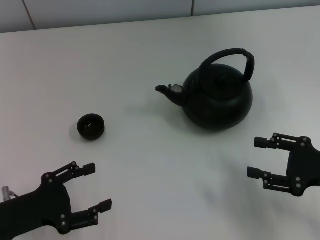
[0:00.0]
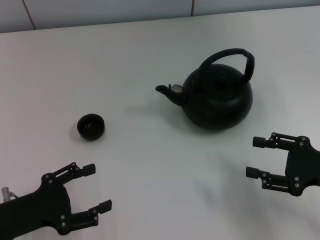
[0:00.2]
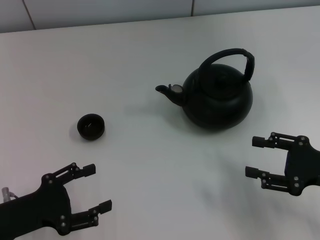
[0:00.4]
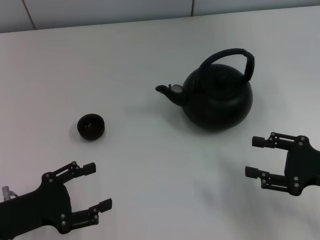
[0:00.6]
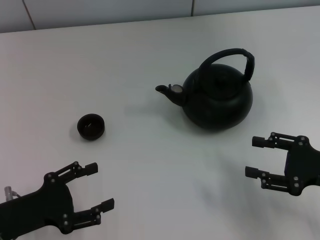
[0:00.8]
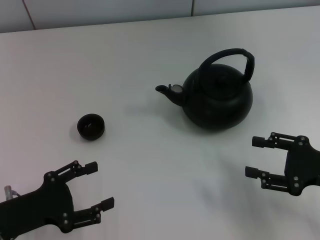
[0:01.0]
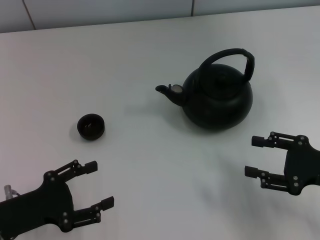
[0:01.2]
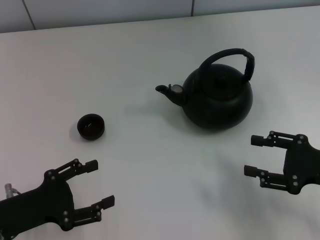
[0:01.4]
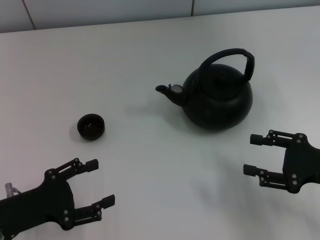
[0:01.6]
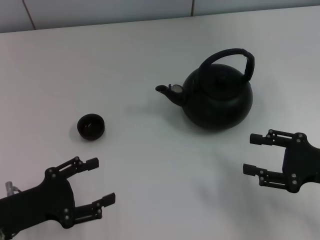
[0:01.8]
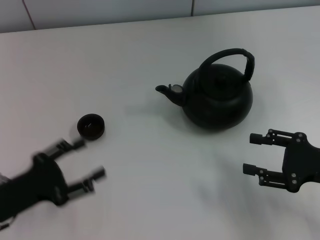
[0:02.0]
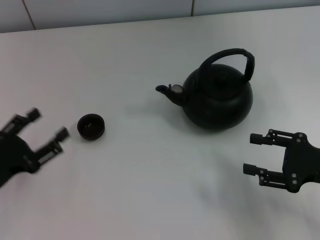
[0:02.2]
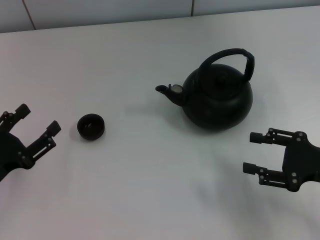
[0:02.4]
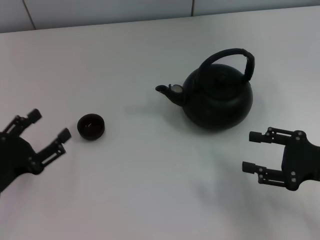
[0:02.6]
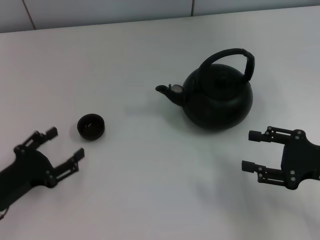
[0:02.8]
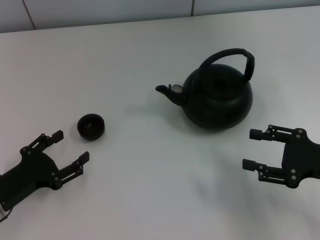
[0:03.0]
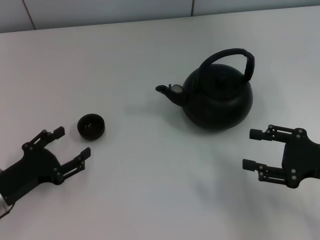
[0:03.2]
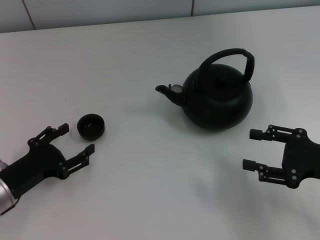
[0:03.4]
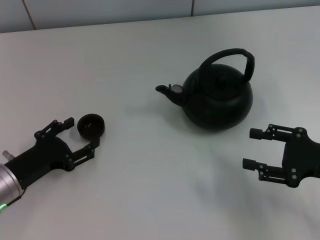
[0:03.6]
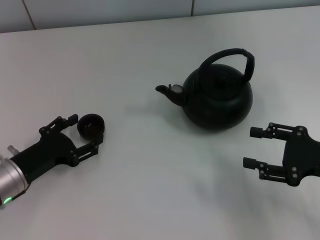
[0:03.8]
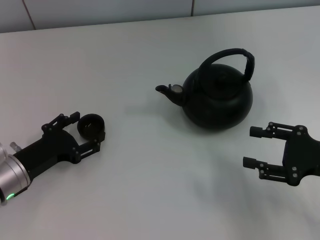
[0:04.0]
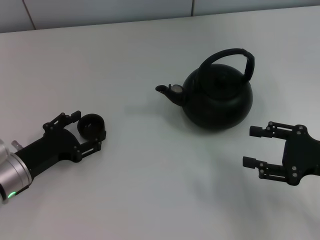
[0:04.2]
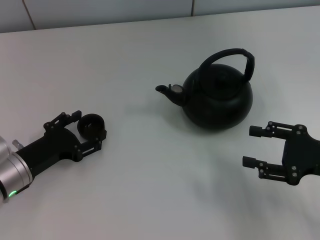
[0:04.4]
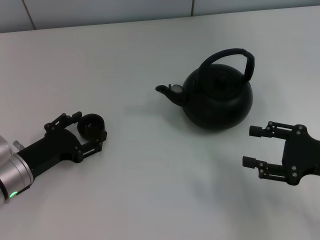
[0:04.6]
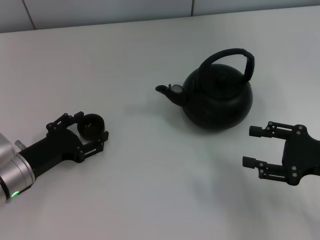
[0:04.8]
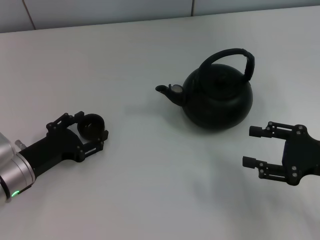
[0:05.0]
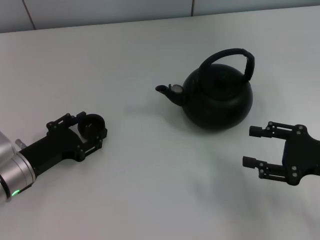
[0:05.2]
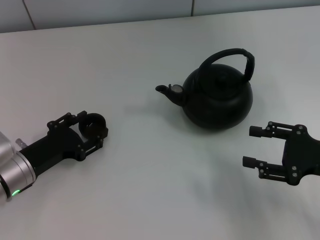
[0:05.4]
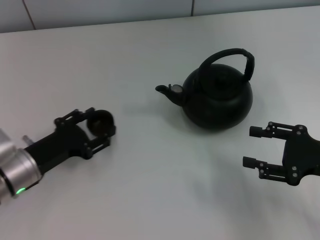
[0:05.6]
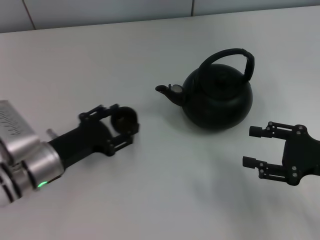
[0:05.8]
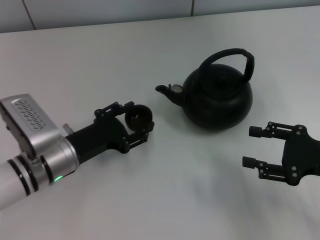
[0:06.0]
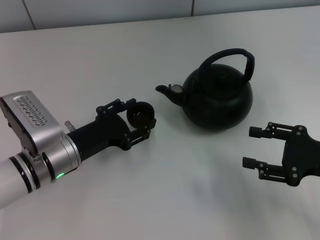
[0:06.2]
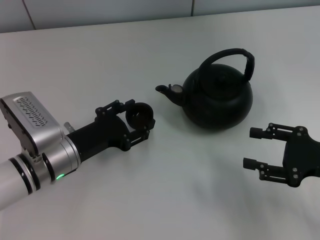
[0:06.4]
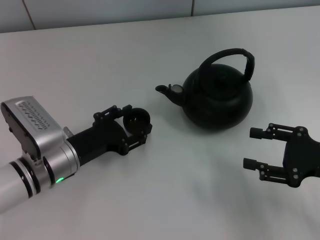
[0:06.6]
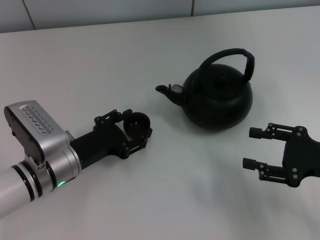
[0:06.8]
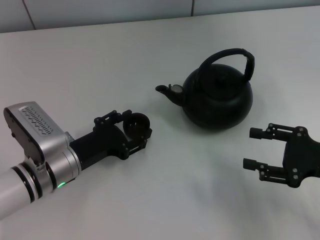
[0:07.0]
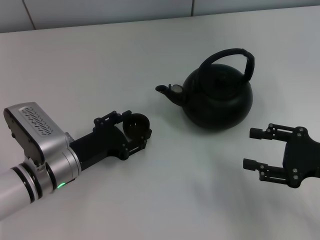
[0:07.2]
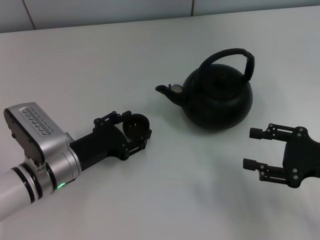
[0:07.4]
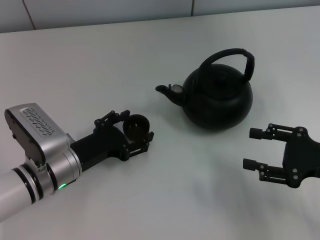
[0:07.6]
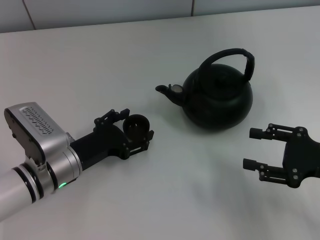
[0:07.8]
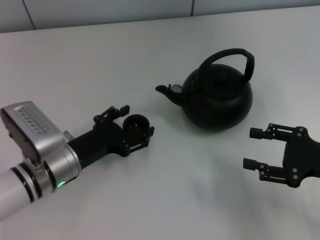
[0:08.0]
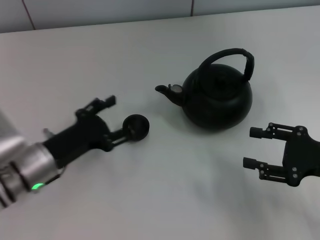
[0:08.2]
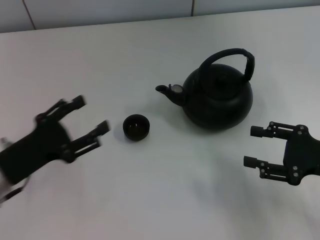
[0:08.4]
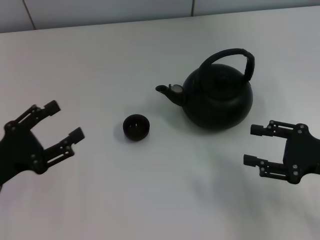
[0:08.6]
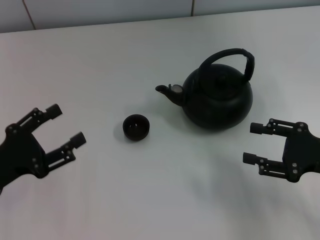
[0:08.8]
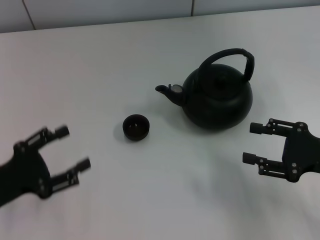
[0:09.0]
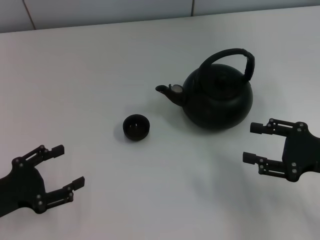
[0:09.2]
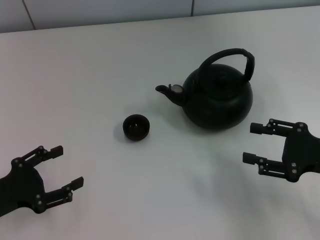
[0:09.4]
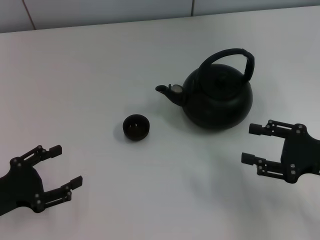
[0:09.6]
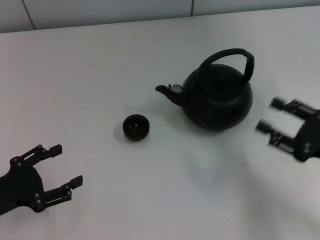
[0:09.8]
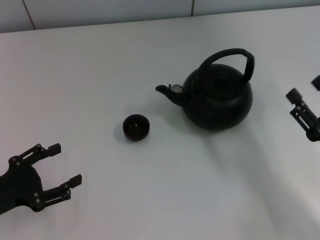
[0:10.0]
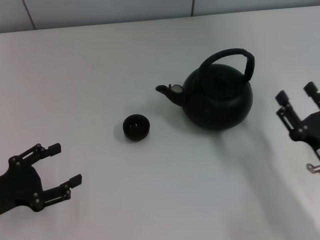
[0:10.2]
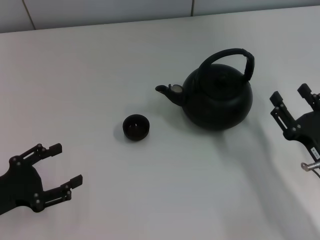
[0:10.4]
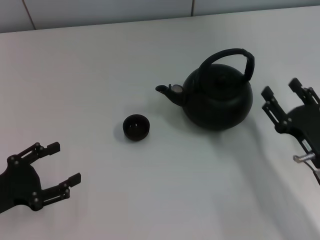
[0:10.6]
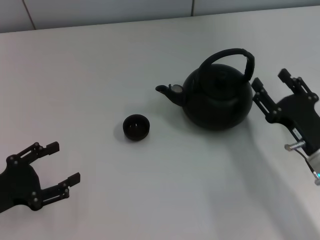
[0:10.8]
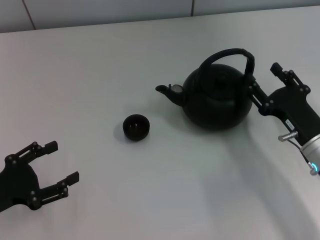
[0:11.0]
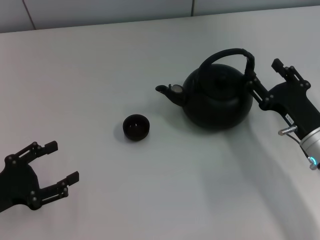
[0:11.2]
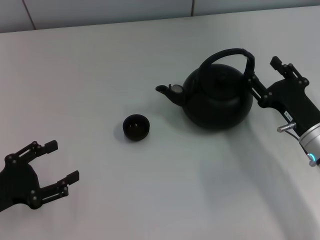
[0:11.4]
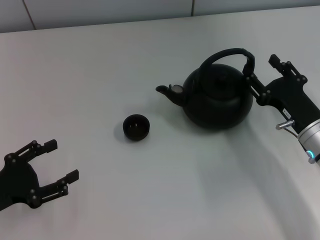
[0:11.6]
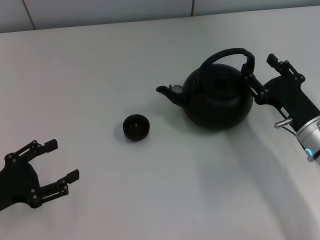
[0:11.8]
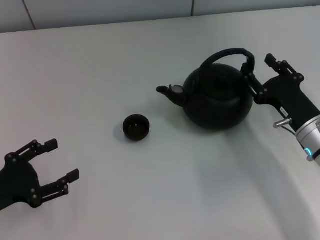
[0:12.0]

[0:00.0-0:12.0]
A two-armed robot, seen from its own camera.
Task of the whole recording: Grasp the handle of the teapot with one hand and pour tea into the teacup.
Step, 0:00.0 to 0:05.4: Pick up the teacup with the left gripper.
Step, 0:05.6 to 0:08.0: Place the teacup in the center of view with the left gripper.
0:00.0 to 0:01.6: The two grippers keep their place.
0:03.0 to 0:04.4: The left gripper travels forward by some 5 cm.
0:04.4 to 0:06.0: The left gripper travels to the right by roughly 5 cm, and closes up.
0:06.0 to 0:07.6: The grippers move only a little.
0:07.6 to 0:09.0: The left gripper shifts approximately 15 cm to the left and backward, and opens up.
0:09.0 to 0:10.4: The right gripper shifts roughly 10 cm downward and to the left.
0:10.4 to 0:12.0: The right gripper goes about 10 cm forward.

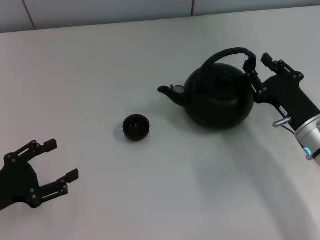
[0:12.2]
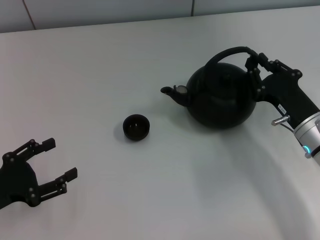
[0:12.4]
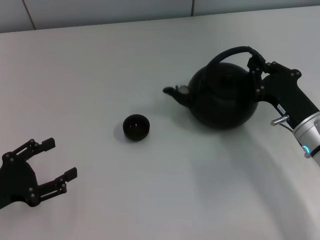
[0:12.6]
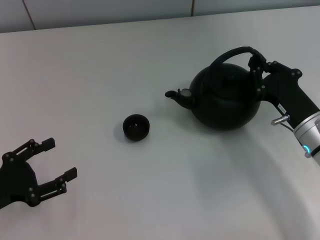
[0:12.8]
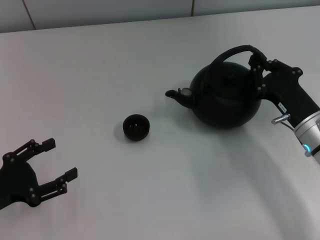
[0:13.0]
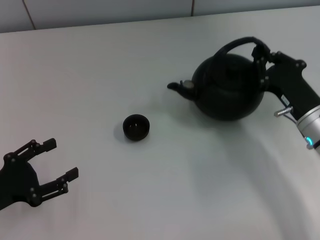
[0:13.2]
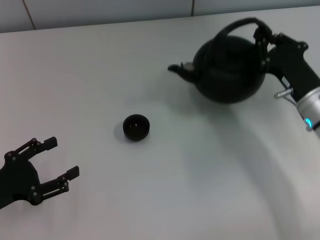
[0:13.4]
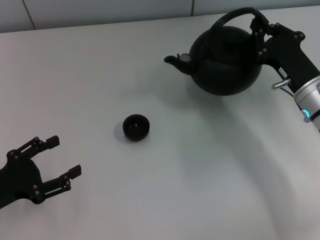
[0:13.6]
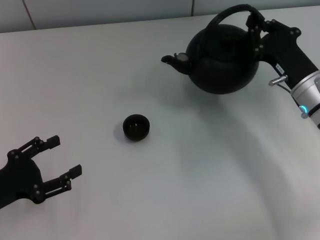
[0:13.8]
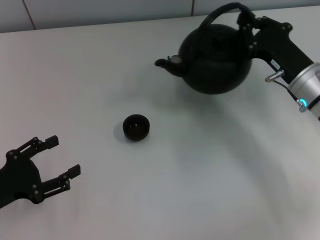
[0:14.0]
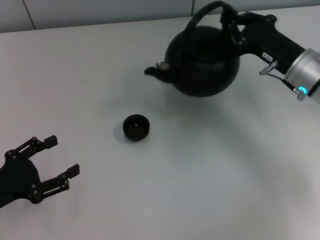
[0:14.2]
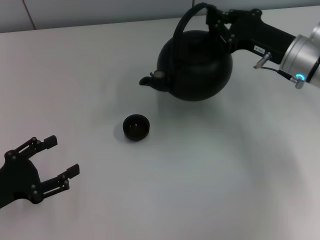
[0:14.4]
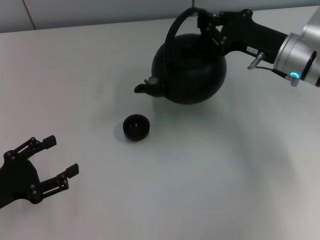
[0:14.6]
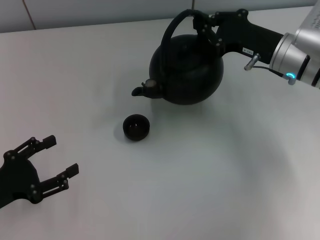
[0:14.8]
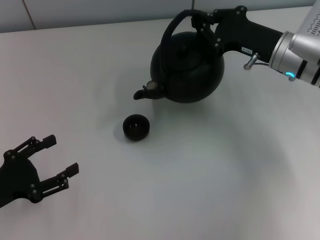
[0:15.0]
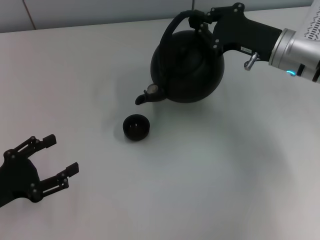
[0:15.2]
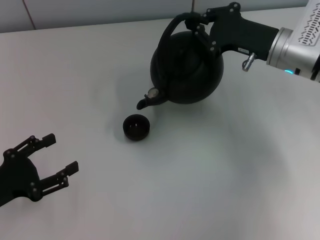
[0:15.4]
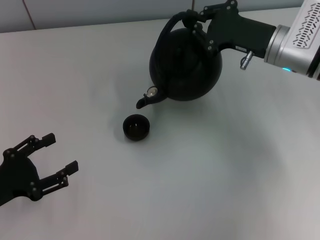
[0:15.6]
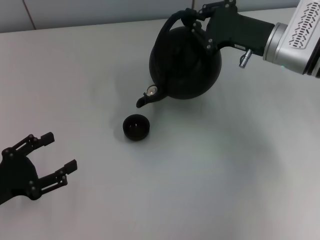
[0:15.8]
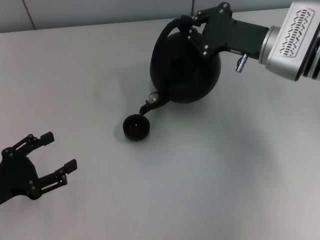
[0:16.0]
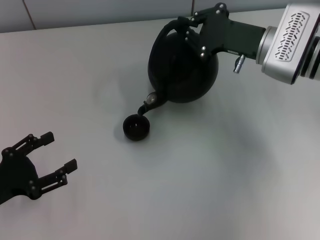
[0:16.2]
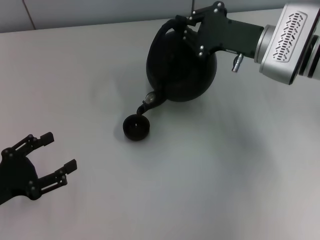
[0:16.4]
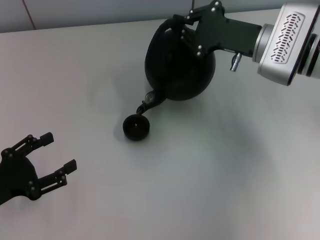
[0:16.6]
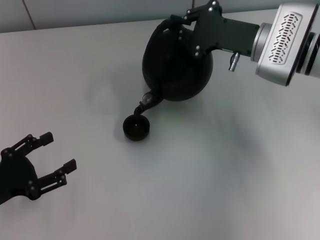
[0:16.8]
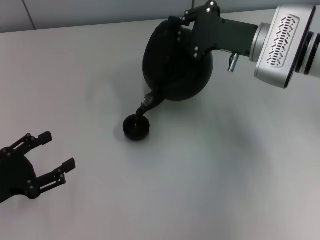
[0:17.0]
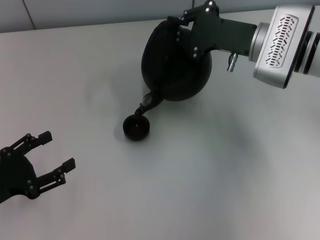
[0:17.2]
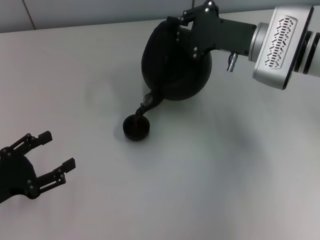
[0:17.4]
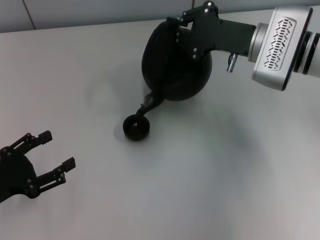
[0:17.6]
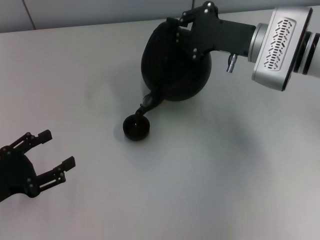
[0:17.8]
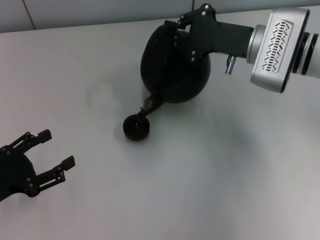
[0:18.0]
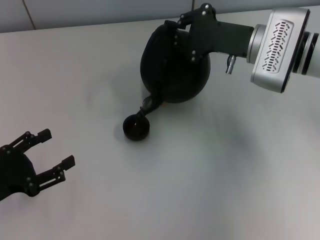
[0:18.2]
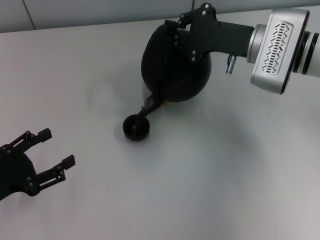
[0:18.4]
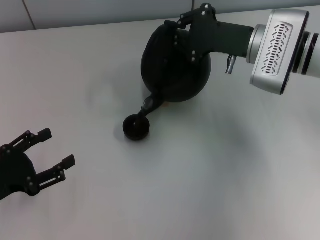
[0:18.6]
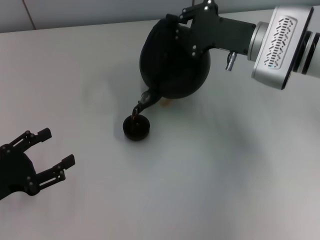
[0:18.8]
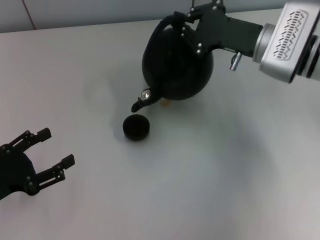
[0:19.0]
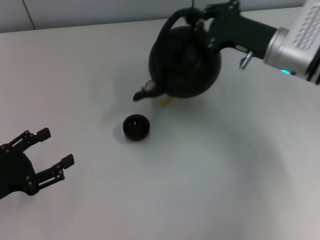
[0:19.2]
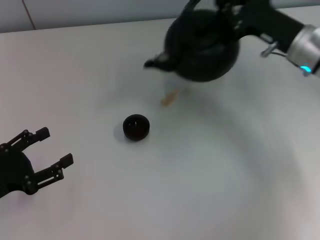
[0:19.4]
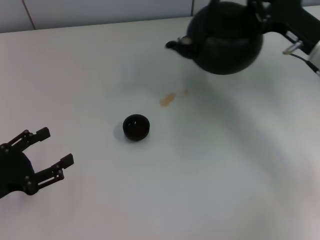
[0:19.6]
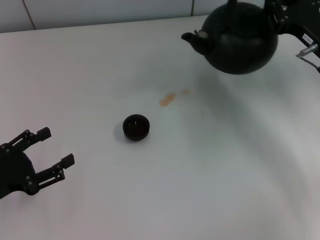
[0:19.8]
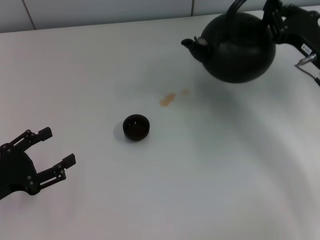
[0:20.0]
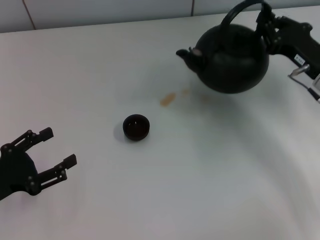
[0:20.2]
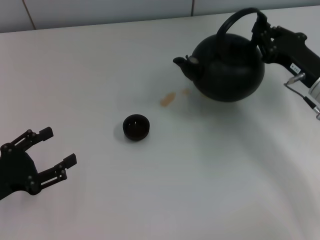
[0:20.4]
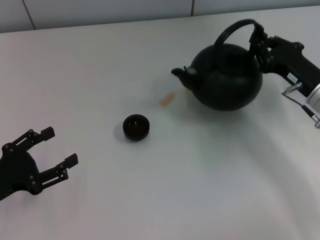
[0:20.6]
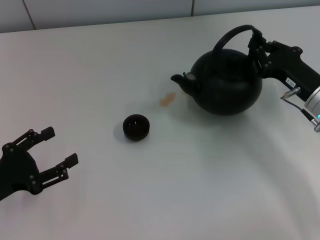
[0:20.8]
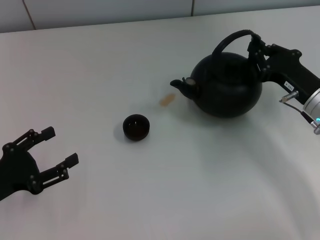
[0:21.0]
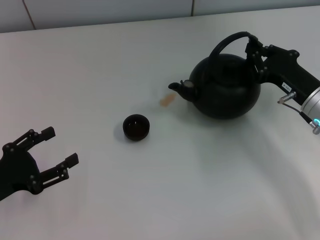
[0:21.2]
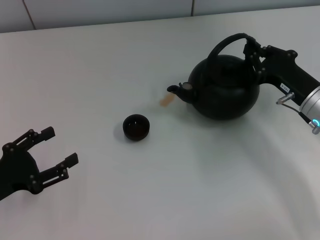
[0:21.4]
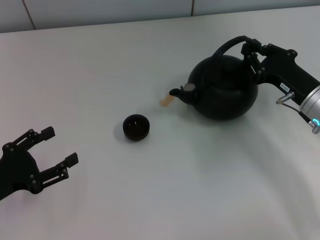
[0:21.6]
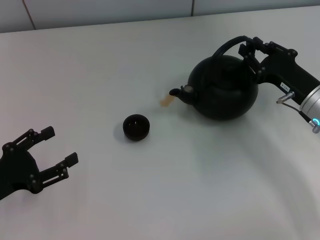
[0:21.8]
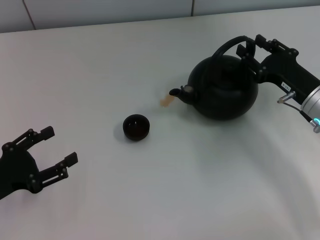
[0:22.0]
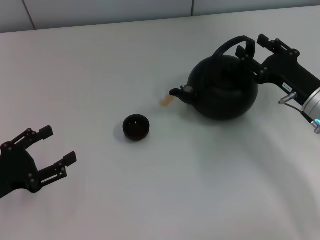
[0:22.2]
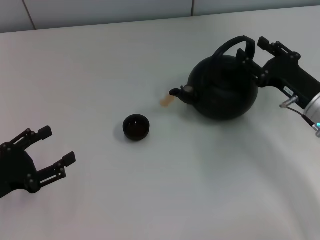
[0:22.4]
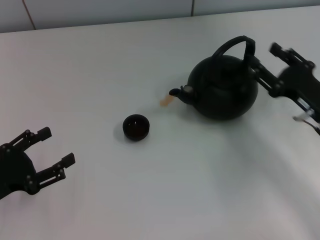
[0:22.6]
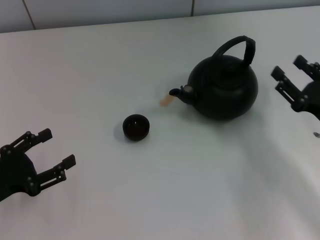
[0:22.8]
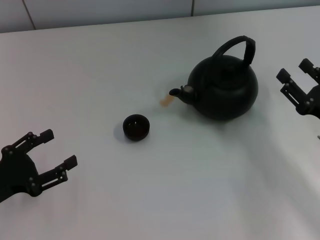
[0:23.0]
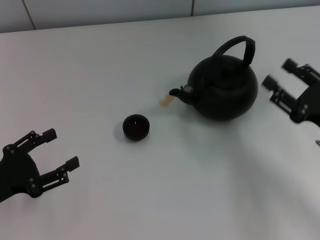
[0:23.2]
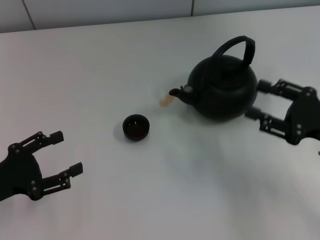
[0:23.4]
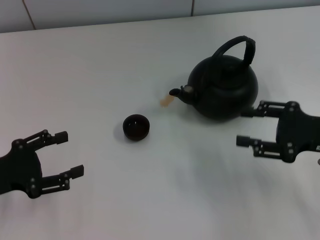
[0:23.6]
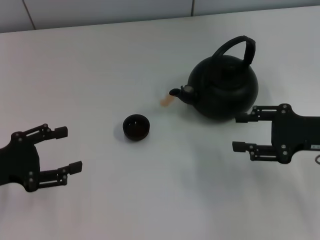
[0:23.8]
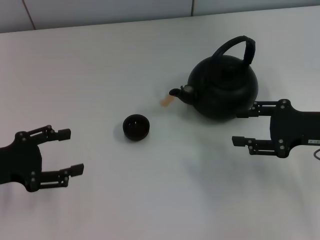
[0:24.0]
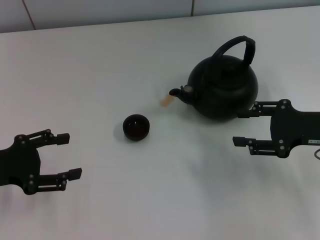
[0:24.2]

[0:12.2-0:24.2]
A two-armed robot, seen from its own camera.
Task of the whole recording: Grasp the handle of the teapot with one hand and pour tea into the teacup.
Step, 0:19.2 to 0:22.4: Put down the teapot with the right gripper.
0:12.2 to 0:13.8: The right gripper goes approximately 5 cm forward, and closes its fingers.
0:13.8 to 0:15.2: The right gripper is displaced forward and upward by roughly 10 cm.
0:15.2 to 0:16.6: The grippers make only small movements.
0:16.6 to 0:18.2: The grippers move only a little.
0:18.2 to 0:19.8: The right gripper goes about 10 cm to the right.
0:19.8 to 0:21.2: The right gripper moves downward, approximately 5 cm.
0:21.2 to 0:22.6: The right gripper changes place by approximately 5 cm, and opens.
0:22.6 to 0:24.2: The right gripper moves upward, approximately 5 cm; the left gripper changes place by approximately 5 cm.
